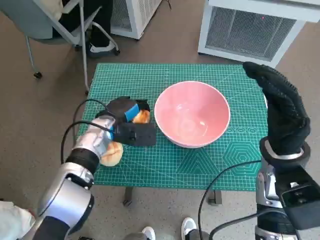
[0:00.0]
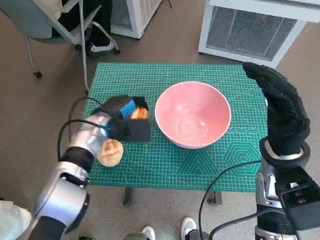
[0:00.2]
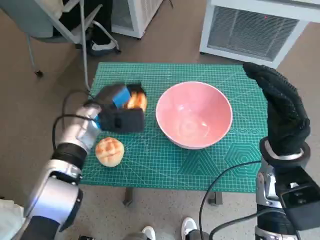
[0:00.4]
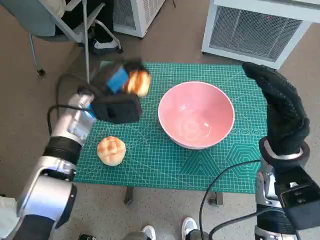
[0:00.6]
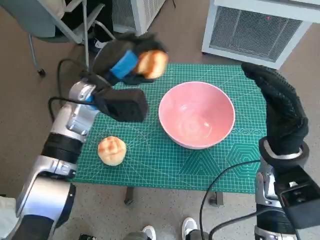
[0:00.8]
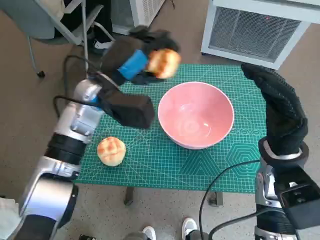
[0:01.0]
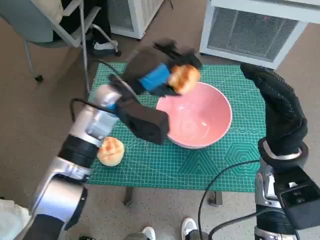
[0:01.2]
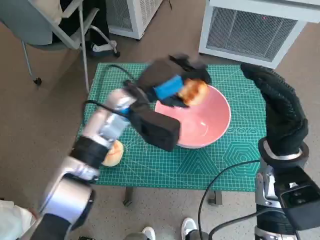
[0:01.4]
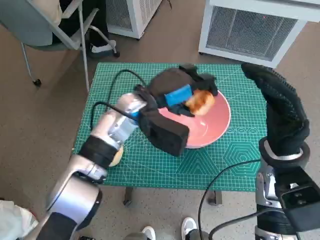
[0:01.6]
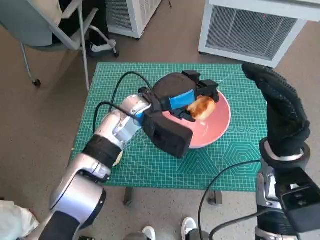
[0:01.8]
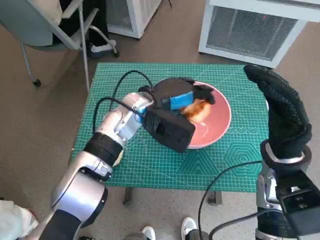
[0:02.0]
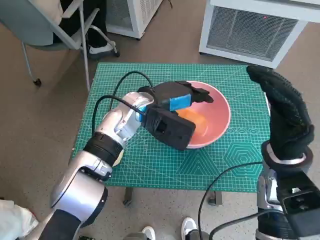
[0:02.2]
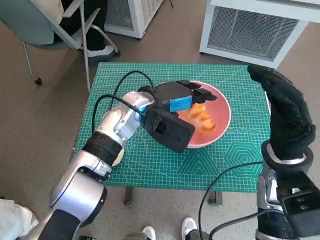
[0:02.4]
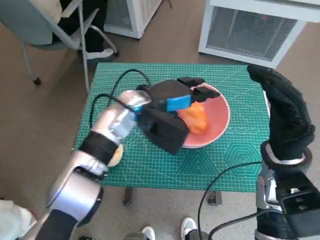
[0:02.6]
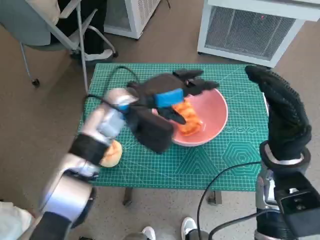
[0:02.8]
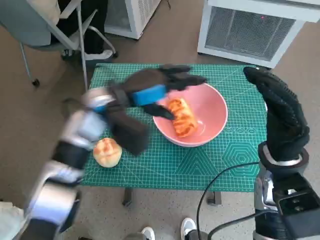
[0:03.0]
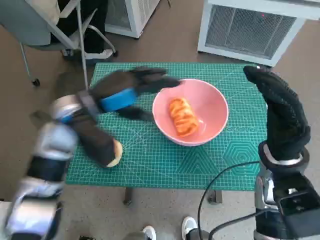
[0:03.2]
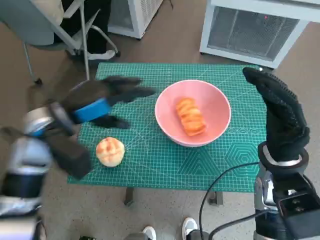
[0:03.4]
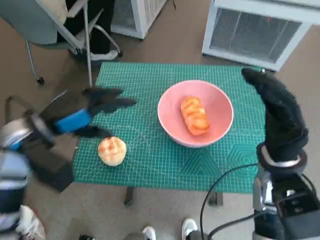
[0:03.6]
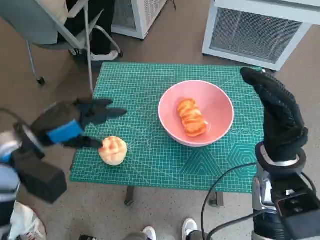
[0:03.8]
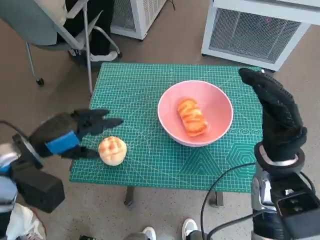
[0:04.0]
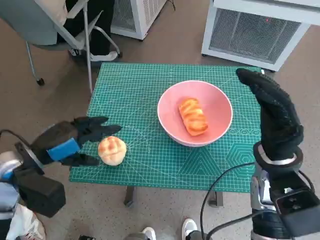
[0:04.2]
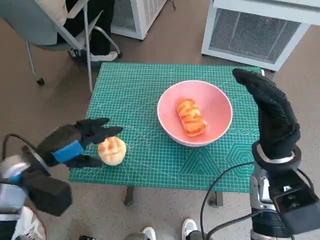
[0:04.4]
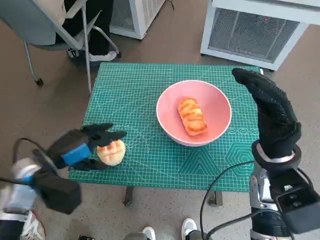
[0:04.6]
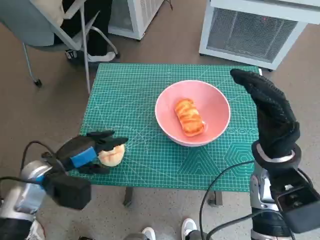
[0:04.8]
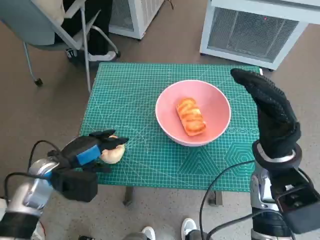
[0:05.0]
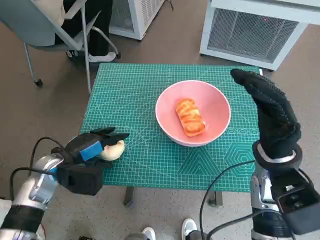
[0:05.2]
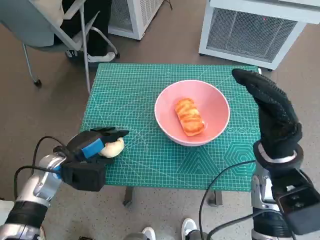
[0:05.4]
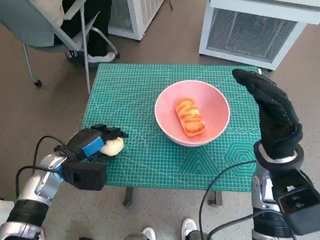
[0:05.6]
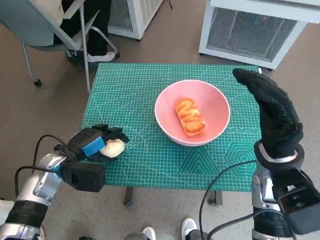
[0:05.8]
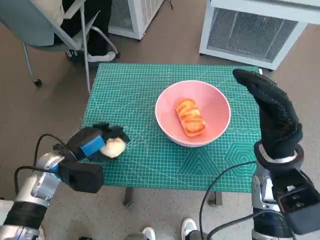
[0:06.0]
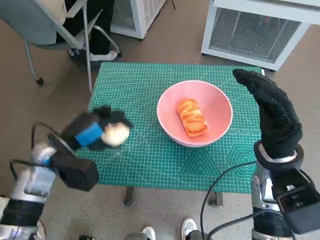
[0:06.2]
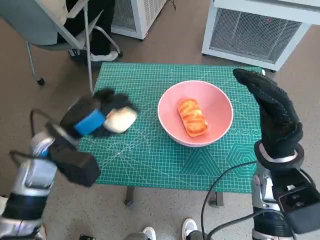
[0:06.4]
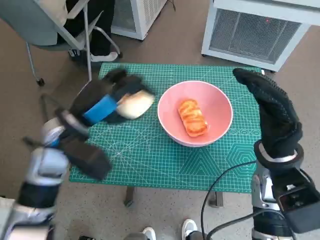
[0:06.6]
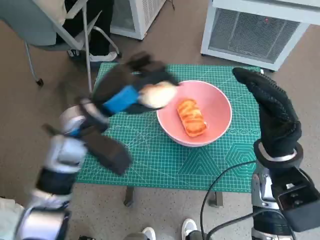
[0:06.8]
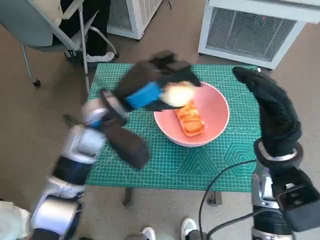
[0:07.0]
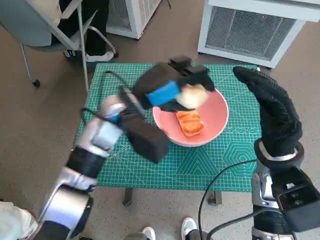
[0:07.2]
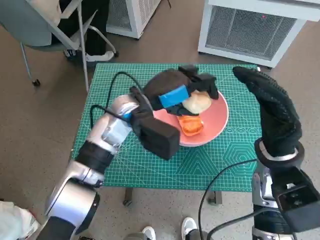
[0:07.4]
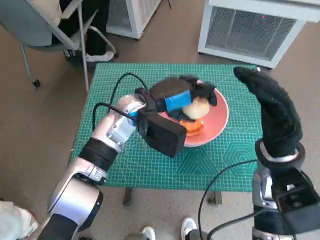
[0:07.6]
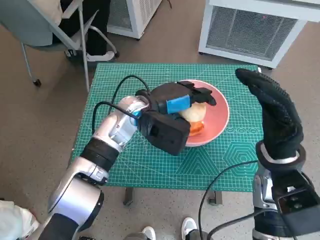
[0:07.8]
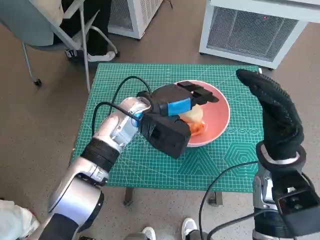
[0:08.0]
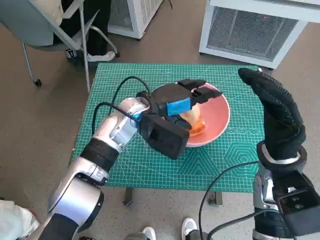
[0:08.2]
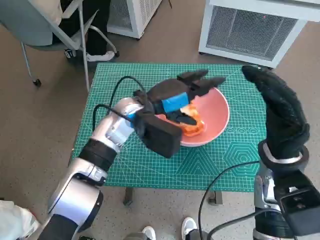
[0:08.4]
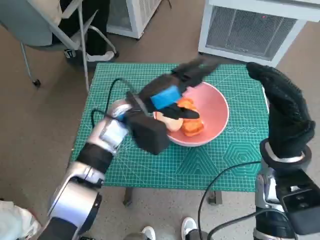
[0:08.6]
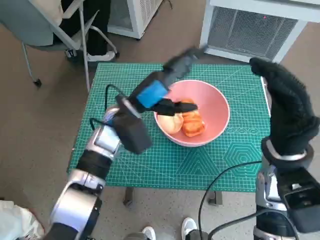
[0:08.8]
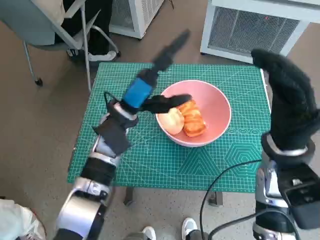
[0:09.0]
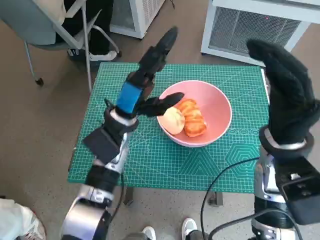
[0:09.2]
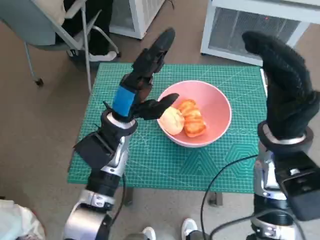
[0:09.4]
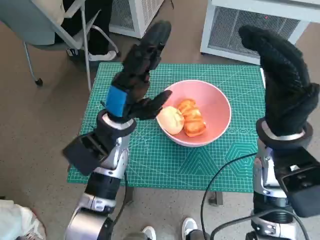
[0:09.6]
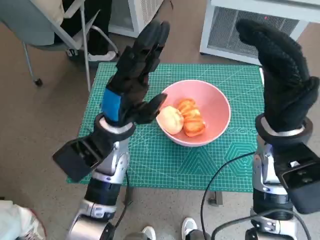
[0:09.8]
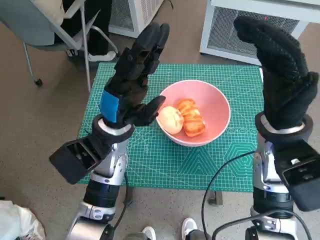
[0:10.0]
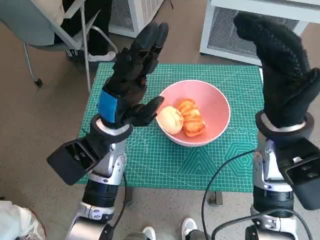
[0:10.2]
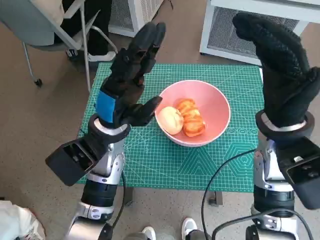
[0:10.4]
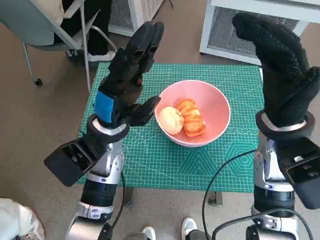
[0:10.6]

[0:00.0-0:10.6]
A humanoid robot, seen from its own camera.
Task of the whole recording: Push the bowl to the center of the table and put the bread into the bowl.
Step, 0:00.0 to 0:03.0: Place the long bread in pink bowl with left hand.
Step, 0:03.2 to 0:05.8: Grasp the round bread with left hand.
Step, 0:06.0 to 0:08.6: Place the round bread in pink bowl with left hand.
0:00.0 to 0:01.6: The left hand travels upward and to the right by about 15 cm.
0:03.0 to 0:04.6: The left hand goes roughly 20 cm to the left, backward and downward.
0:04.6 to 0:06.0: The left hand changes place by approximately 5 cm.
0:06.0 to 0:07.6: The left hand is displaced to the right, upward and forward by roughly 20 cm.
